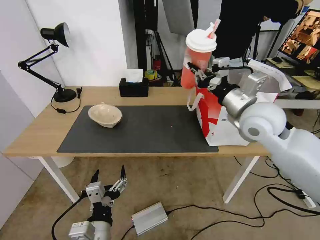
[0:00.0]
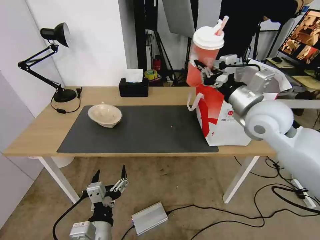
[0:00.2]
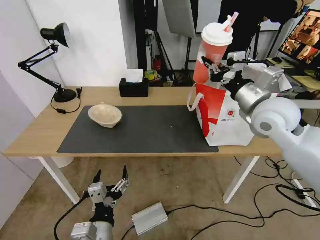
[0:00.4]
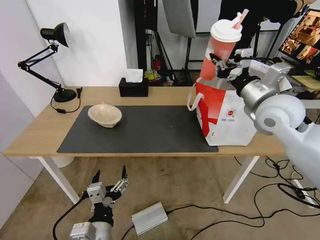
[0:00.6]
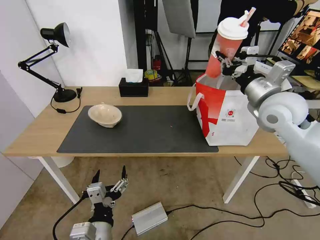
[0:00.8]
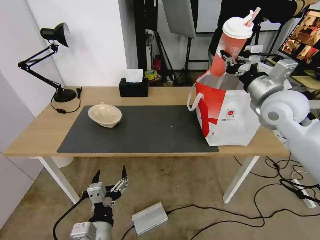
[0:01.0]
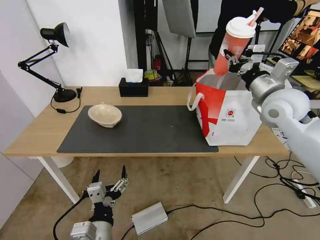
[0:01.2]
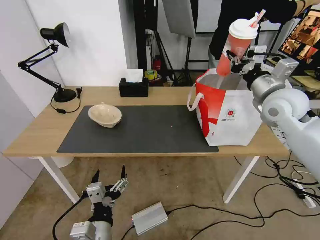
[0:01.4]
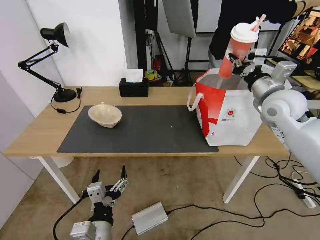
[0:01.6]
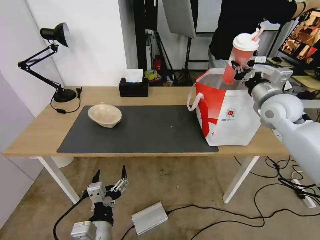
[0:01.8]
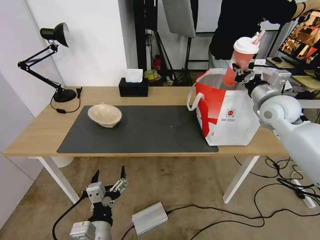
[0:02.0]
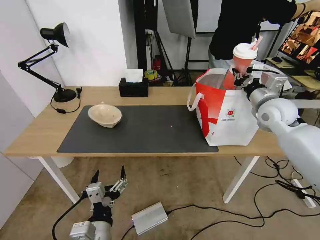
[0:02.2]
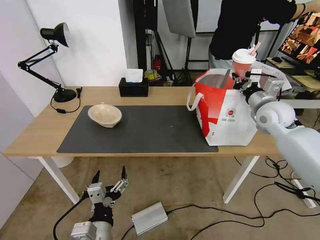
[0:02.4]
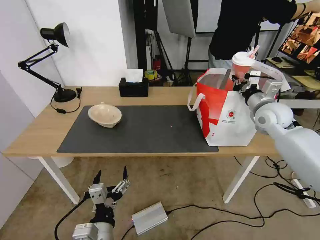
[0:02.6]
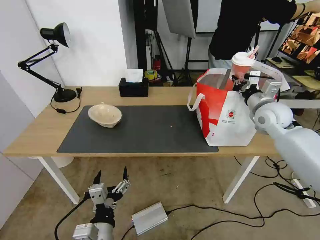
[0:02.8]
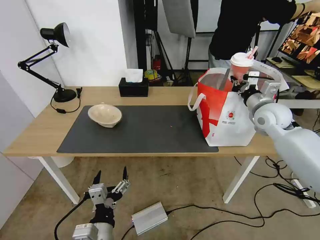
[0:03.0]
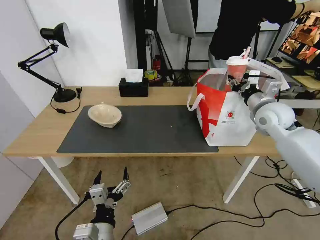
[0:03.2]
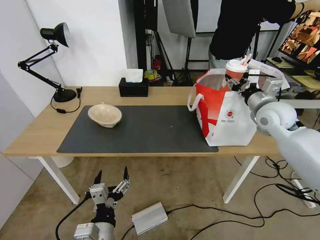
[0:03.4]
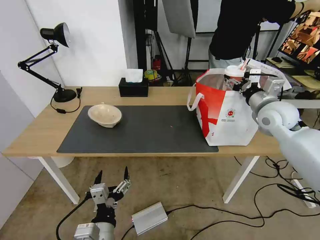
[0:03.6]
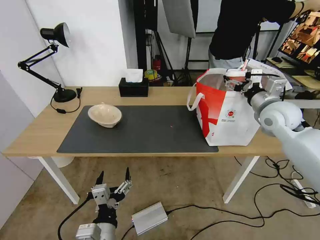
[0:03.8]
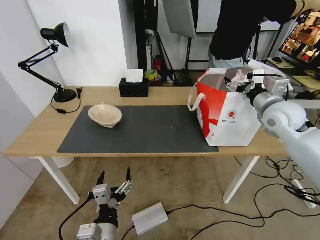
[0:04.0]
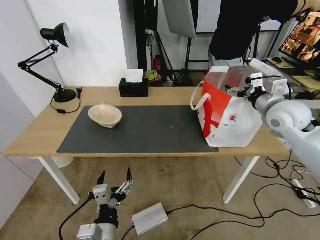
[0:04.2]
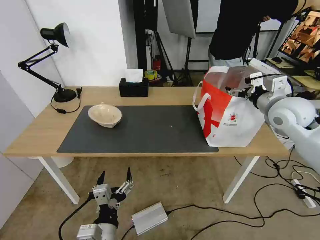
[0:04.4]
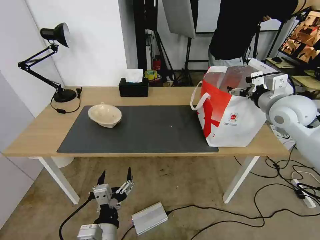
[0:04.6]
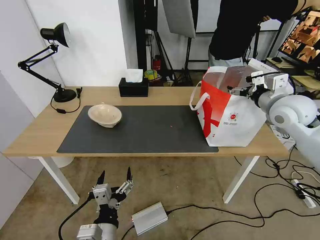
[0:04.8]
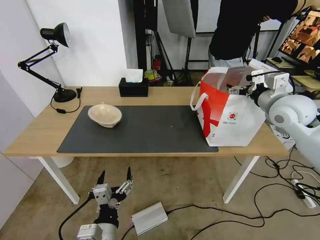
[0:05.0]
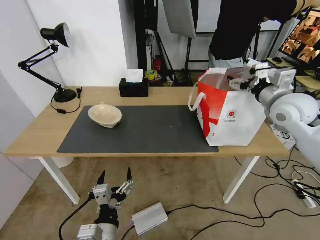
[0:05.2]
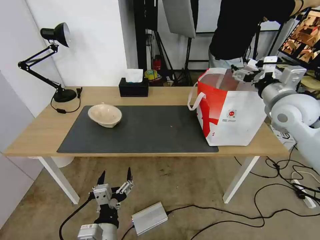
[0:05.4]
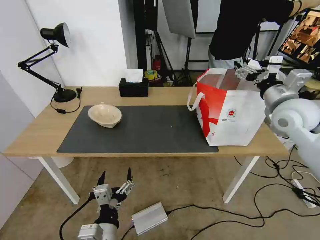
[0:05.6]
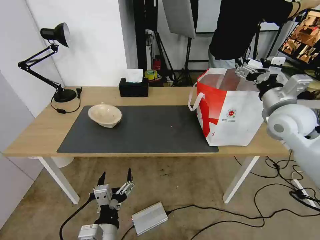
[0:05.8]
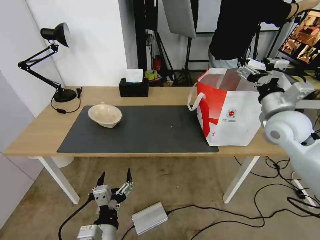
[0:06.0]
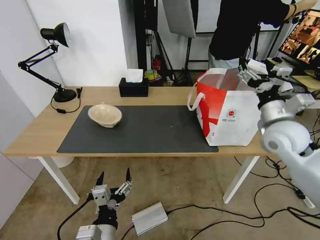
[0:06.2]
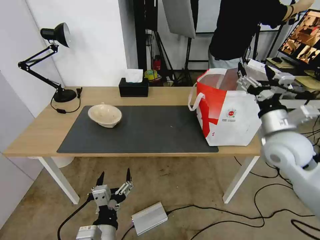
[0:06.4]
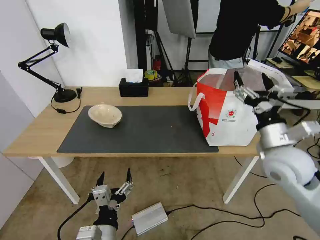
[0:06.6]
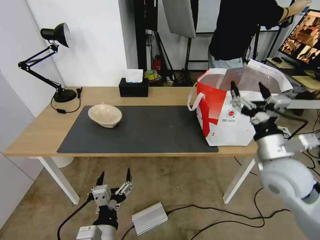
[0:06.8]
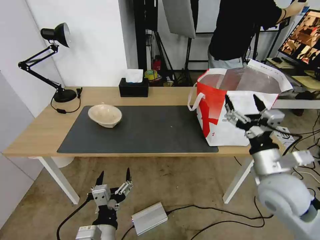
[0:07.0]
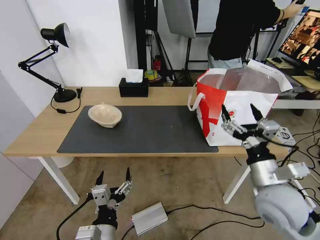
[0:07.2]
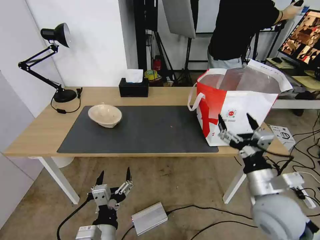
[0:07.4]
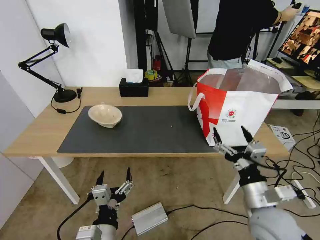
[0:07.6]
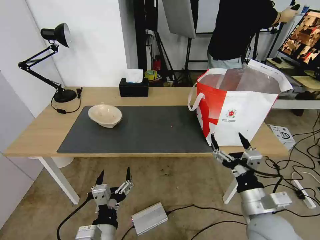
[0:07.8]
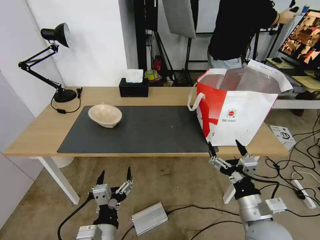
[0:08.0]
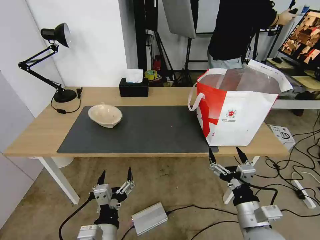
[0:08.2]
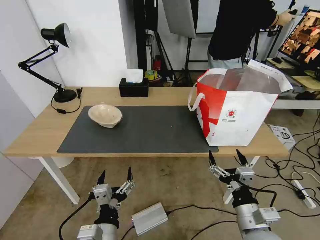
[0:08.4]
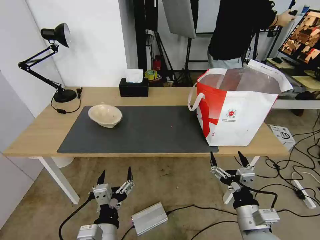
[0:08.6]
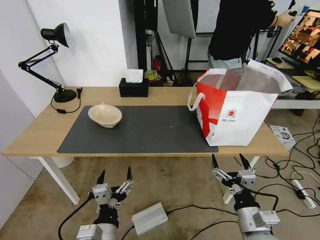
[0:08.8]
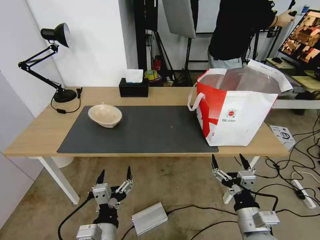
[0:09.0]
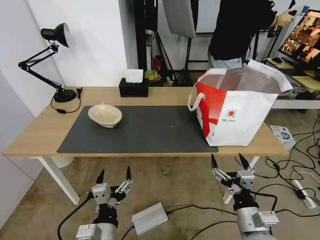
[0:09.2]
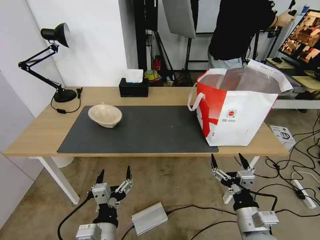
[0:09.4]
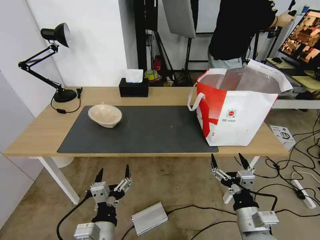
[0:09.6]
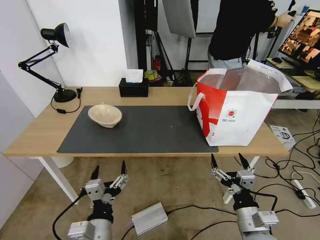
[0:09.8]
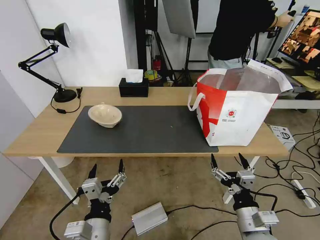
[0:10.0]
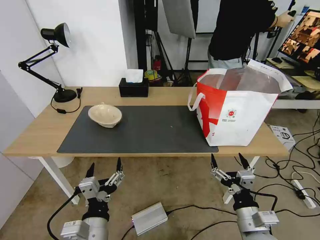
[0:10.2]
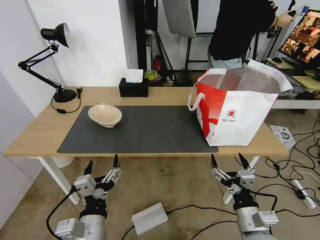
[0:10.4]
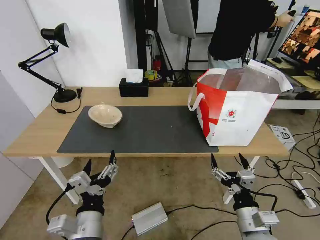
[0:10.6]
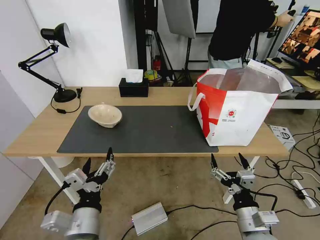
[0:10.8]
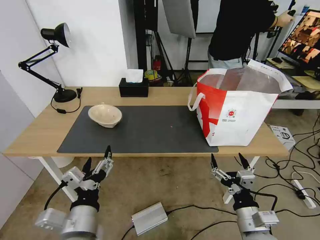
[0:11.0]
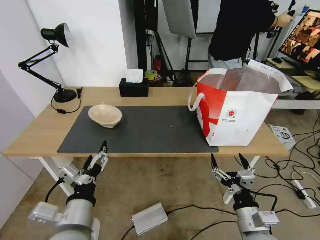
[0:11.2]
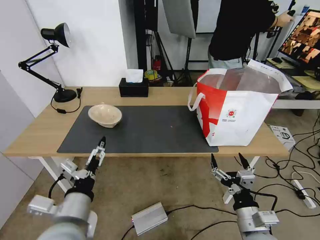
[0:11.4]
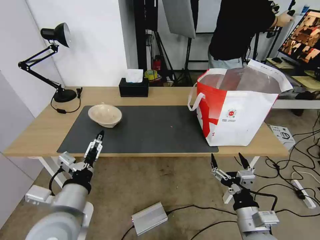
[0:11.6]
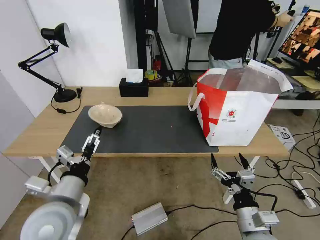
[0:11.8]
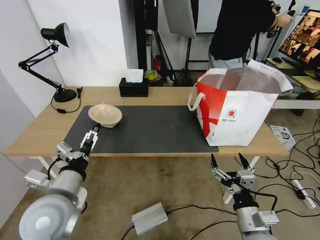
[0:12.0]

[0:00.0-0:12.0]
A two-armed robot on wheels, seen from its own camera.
Task of the whole recording: Pick up the trash from the table and place it into the takeout bag.
0:00.0 to 0:01.6: The right gripper goes some 10 cm to the right and forward.
0:01.6 to 0:03.0: The right gripper shifts some 5 cm downward.
0:03.0 to 0:04.4: The right gripper heads upward, covering some 5 cm, and opens up.
0:06.0 to 0:07.6: The right gripper goes roughly 25 cm backward and downward.
0:07.6 to 0:09.0: The right gripper moves downward, some 5 cm.
0:09.0 to 0:10.4: The grippers make only small movements.
0:10.4 to 0:12.0: The left gripper travels forward, to the left and upward by approximately 15 cm.

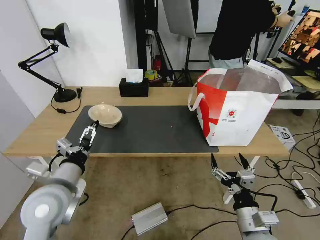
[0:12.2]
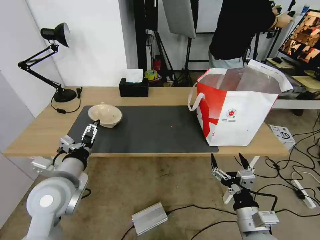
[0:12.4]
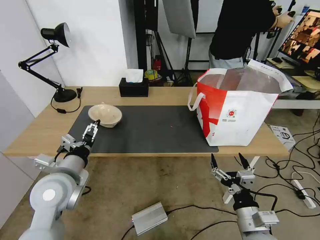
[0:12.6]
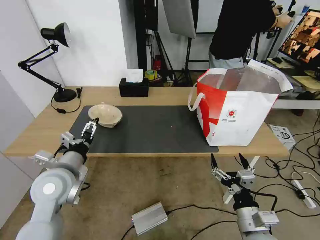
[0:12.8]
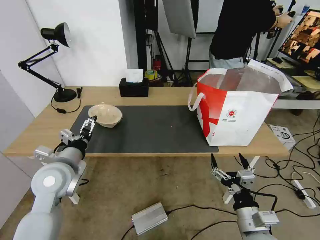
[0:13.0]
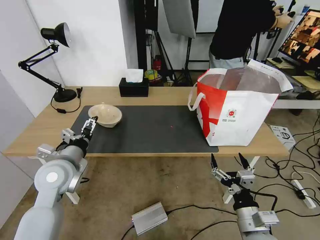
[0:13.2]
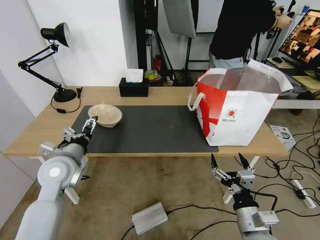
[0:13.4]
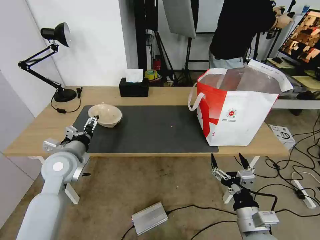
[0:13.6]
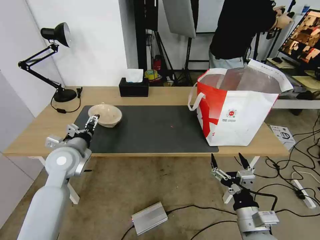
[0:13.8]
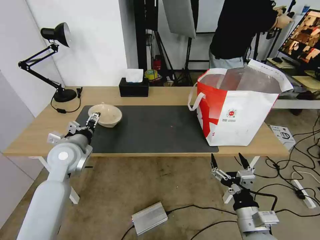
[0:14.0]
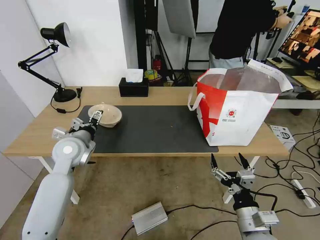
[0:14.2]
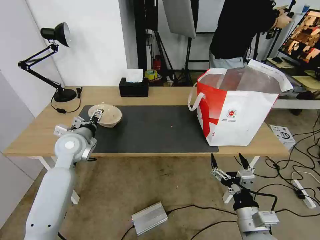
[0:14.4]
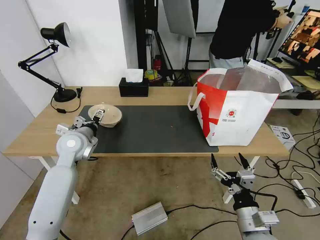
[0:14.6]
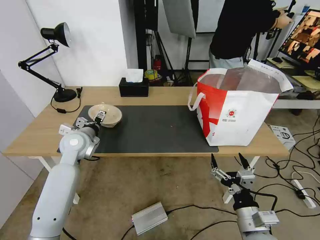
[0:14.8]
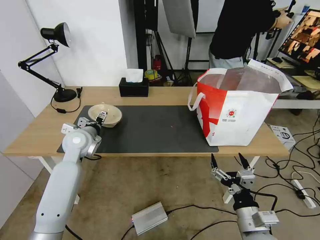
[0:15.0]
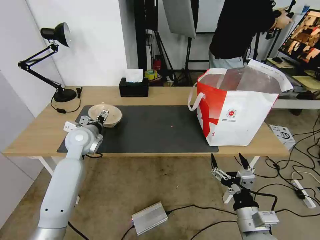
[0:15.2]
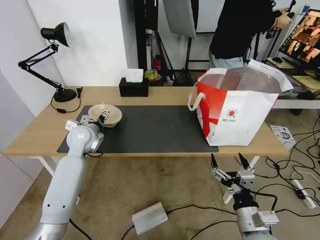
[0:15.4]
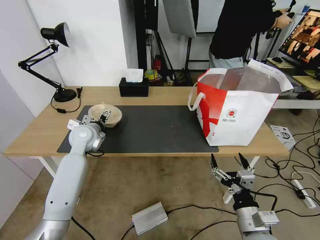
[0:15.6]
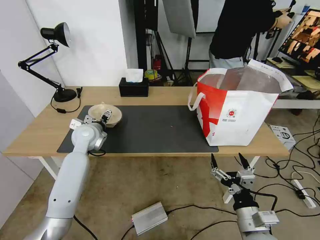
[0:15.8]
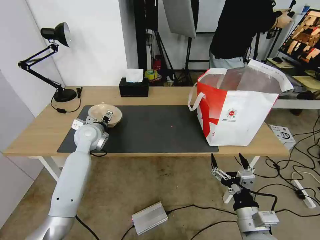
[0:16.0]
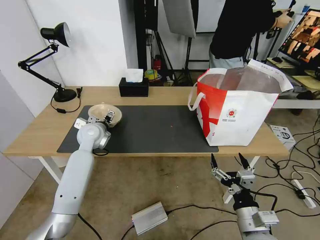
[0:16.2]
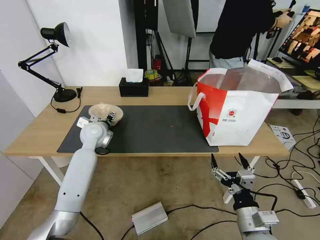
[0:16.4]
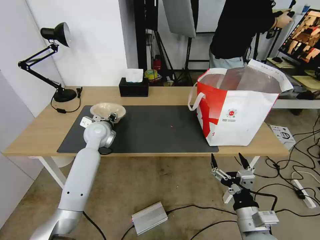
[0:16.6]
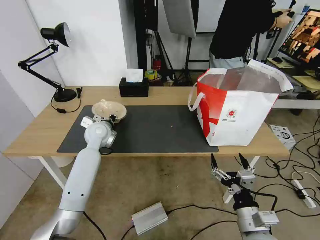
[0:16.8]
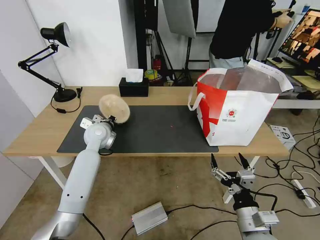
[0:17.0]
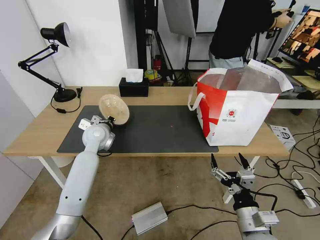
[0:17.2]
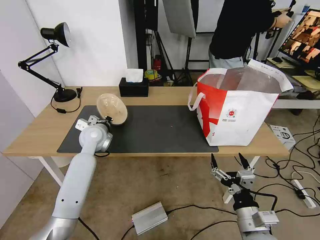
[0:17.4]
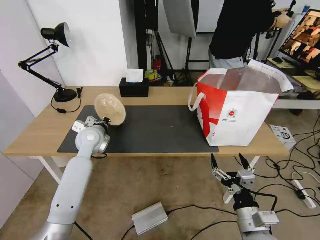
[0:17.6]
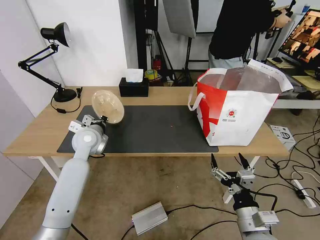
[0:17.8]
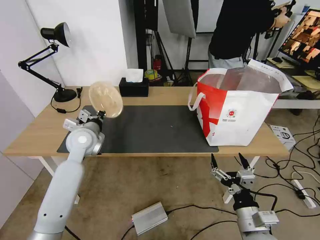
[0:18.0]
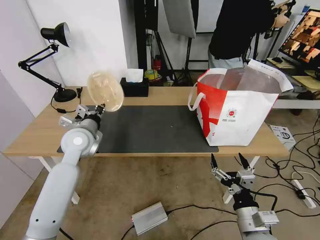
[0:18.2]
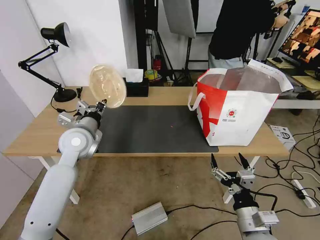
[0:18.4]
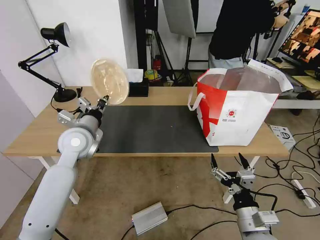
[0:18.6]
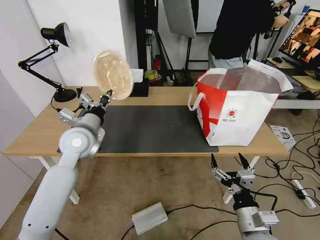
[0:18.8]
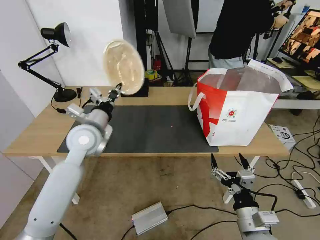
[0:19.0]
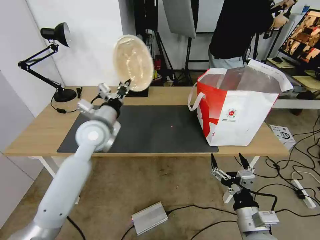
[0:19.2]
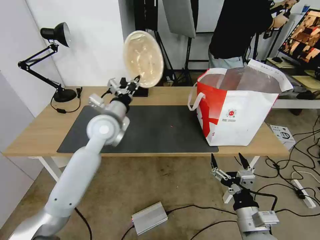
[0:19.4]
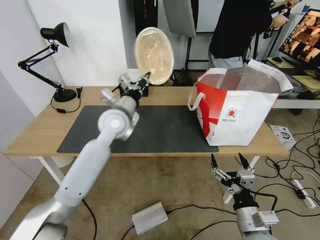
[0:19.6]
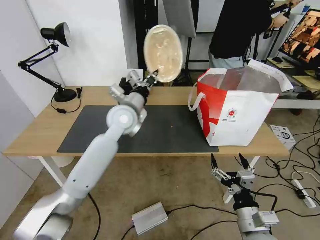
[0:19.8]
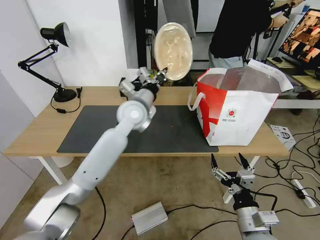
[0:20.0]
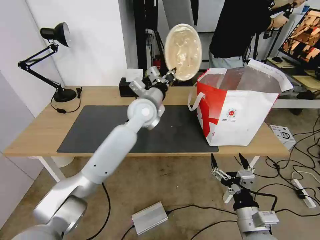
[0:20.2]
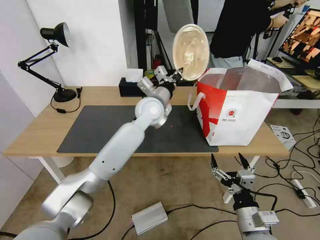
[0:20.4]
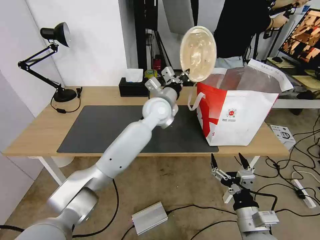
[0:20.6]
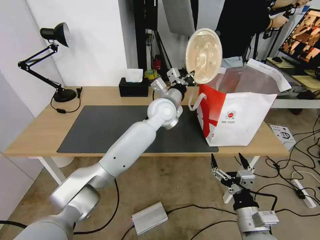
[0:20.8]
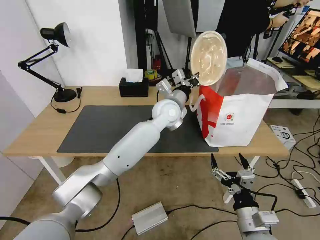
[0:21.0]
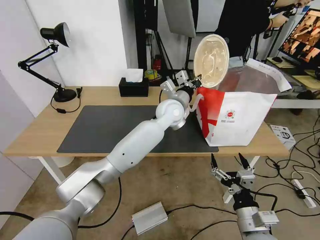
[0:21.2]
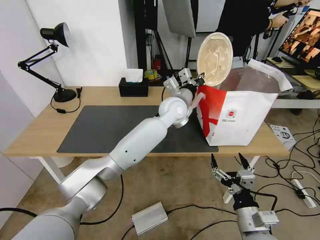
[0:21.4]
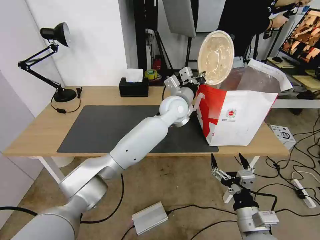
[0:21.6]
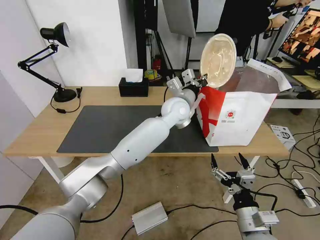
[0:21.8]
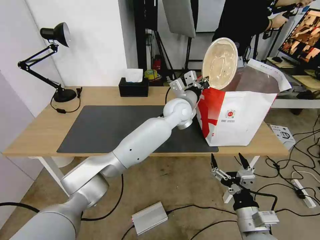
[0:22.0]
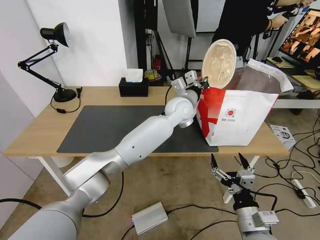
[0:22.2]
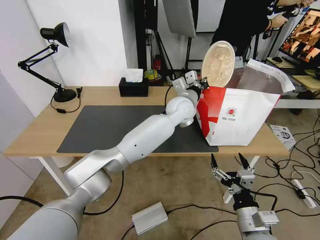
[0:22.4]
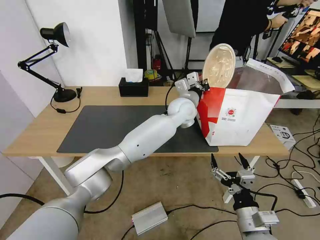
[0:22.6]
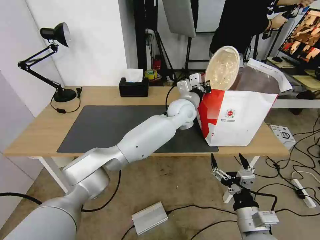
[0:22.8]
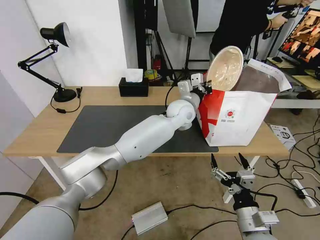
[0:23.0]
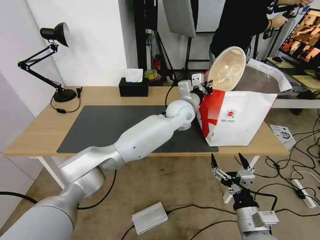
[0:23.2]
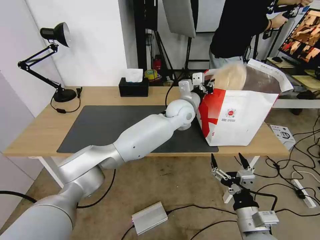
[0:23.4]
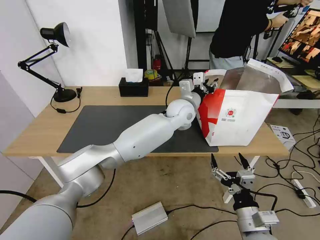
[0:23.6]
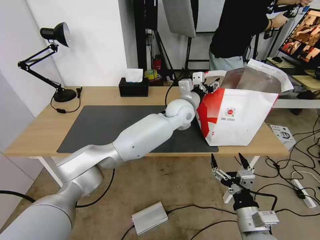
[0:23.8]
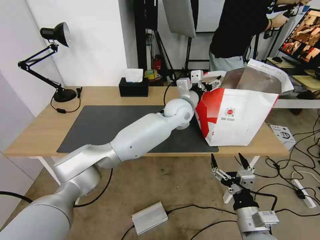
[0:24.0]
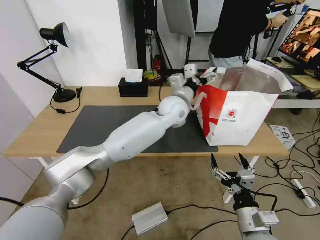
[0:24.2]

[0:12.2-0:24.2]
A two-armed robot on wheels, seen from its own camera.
Task of the whole recording: Pick up the trash from the table and place it into the takeout bag.
0:12.2 to 0:13.8: The left gripper travels forward by some 15 cm.
0:13.8 to 0:15.2: The left gripper shifts some 10 cm forward.
0:15.2 to 0:16.6: The left gripper changes place by approximately 5 cm, and closes up.
0:16.6 to 0:18.2: The left gripper moves backward, approximately 10 cm, and closes.
0:18.2 to 0:19.8: The left gripper goes some 15 cm to the right.
0:19.8 to 0:21.2: The left gripper is displaced to the right by some 15 cm.
0:21.2 to 0:22.6: The grippers stay close to where they were, moving slightly.
0:22.6 to 0:24.2: The left gripper opens its fingers.
